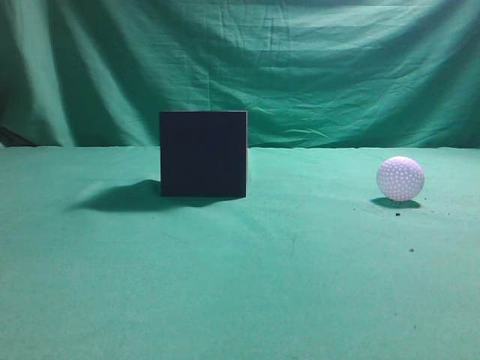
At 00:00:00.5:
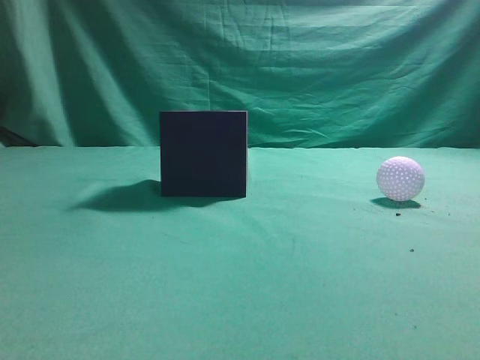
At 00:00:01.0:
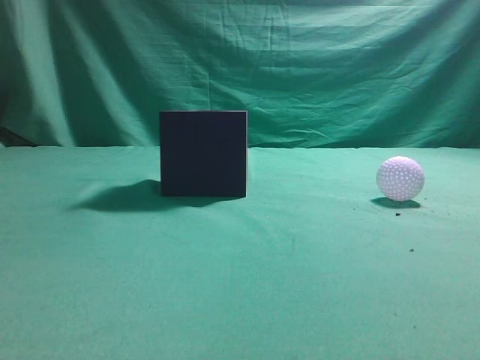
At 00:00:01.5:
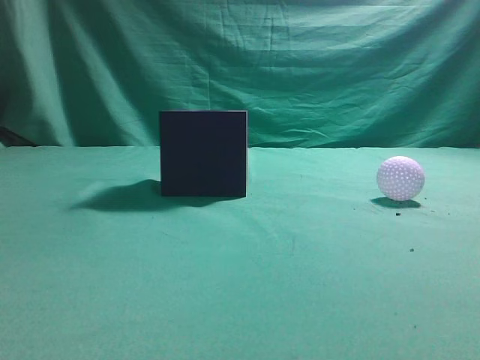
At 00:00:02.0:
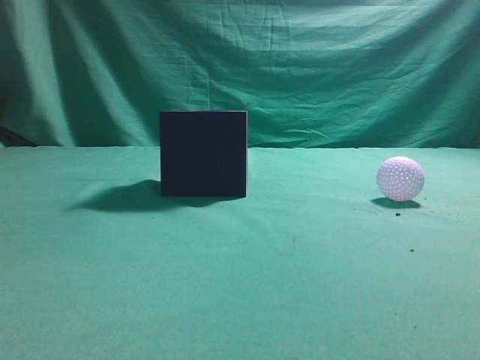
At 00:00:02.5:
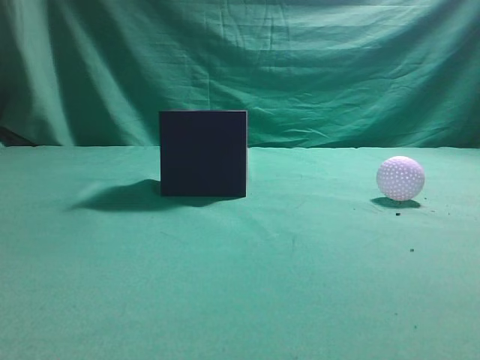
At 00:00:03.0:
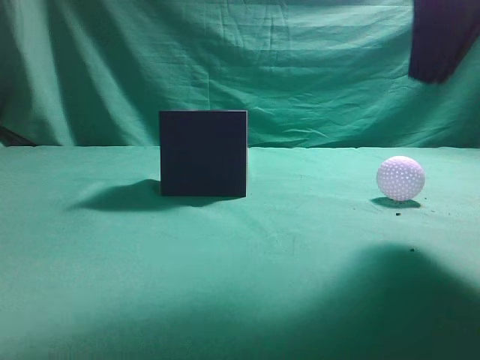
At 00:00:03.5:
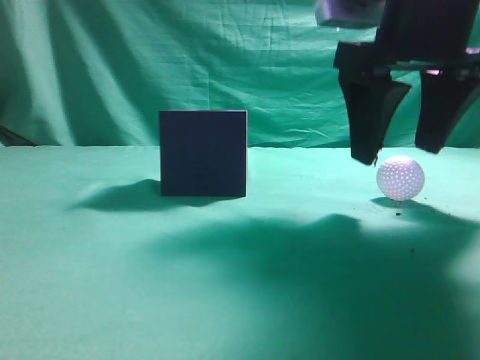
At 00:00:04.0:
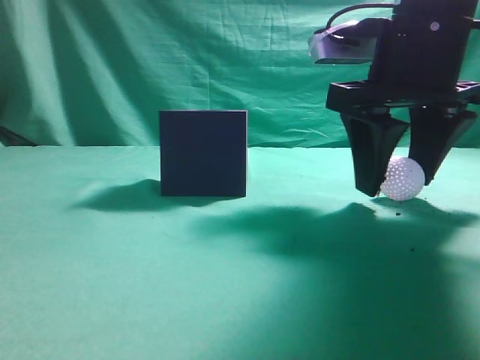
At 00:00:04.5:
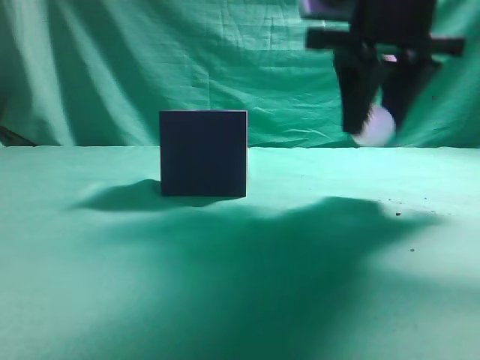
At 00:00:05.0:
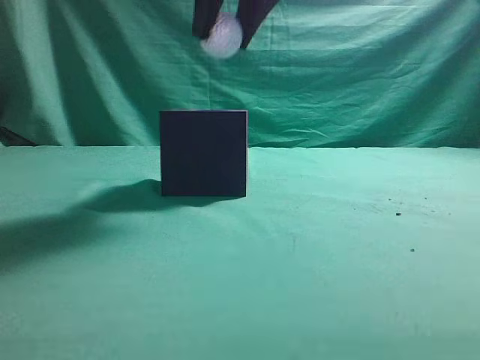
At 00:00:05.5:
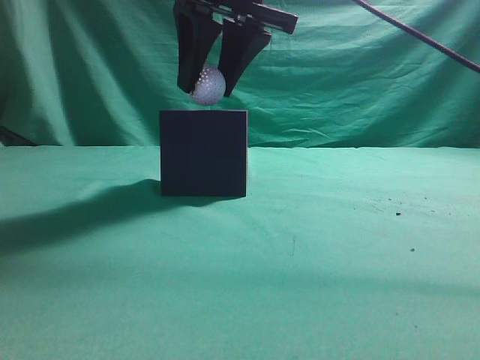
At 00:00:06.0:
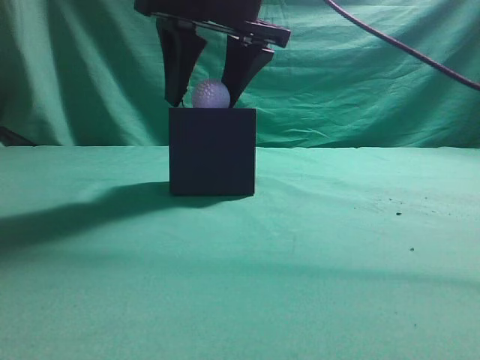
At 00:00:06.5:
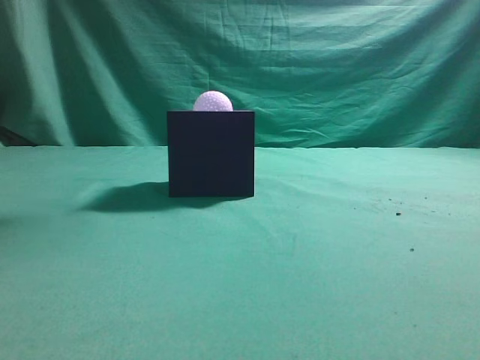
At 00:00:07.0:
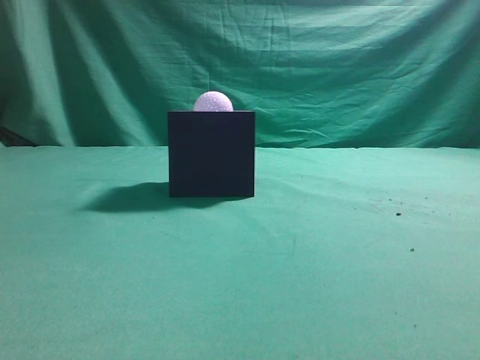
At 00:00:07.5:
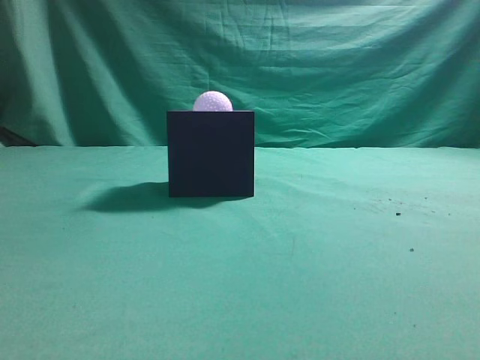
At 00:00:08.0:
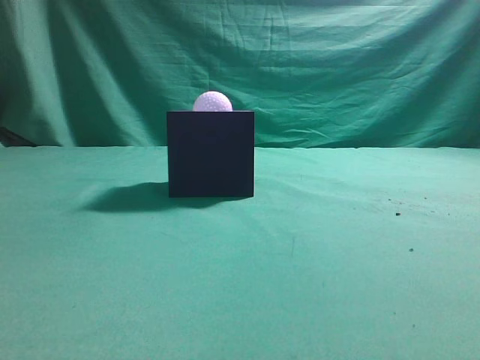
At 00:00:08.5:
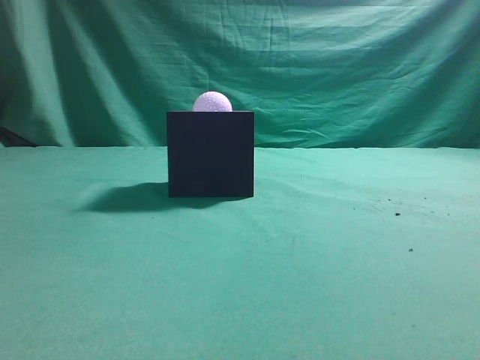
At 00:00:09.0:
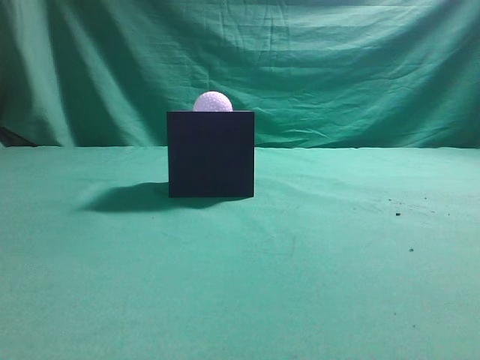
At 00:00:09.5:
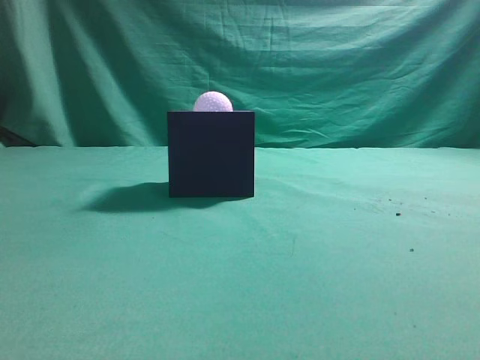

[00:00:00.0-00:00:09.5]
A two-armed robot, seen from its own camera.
Task of the whole recording: Pick up the ball and place it in the circular groove above the cube.
Step, 00:00:00.0 to 00:00:04.0: Grasp the sphere on the table.
Step, 00:00:04.5 to 00:00:06.0: Place the sphere into the sphere-shaped recess.
00:00:02.0 to 00:00:04.0: The right gripper shifts some 30 cm forward, to the left and downward, and opens.
00:00:04.0 to 00:00:05.5: The right gripper travels to the left and upward by roughly 15 cm.
00:00:05.5 to 00:00:07.5: The right gripper is displaced backward, to the right and upward by some 30 cm, and closes up.
